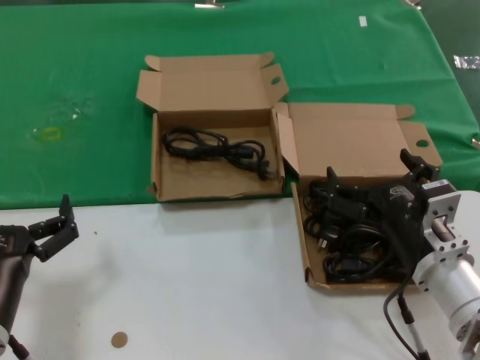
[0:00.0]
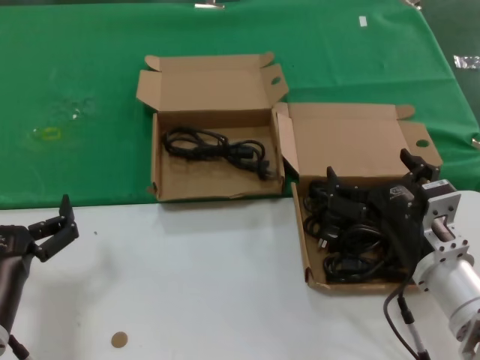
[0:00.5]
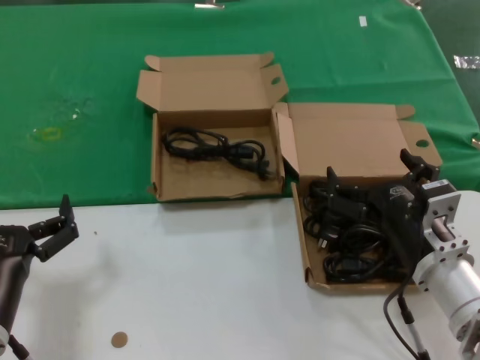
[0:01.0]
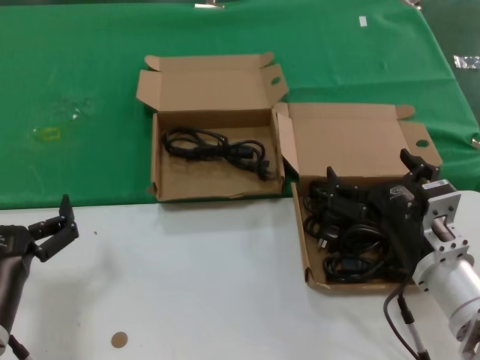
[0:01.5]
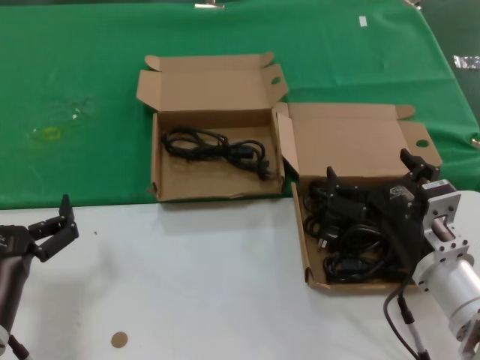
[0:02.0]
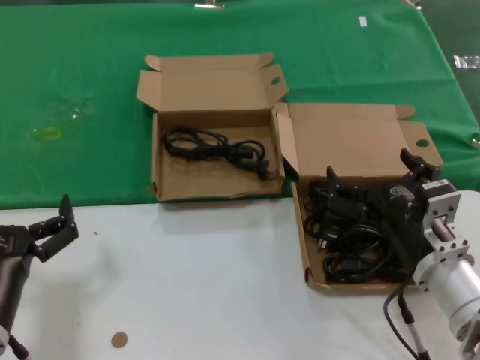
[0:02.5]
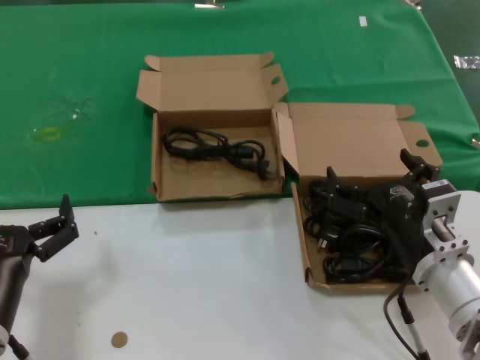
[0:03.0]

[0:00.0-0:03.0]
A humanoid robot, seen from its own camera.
Task of the whole recording: take the parts from the box containing them and put them into an empty box.
0:00.0 to 0:03.0: Both hands stay about where they are.
